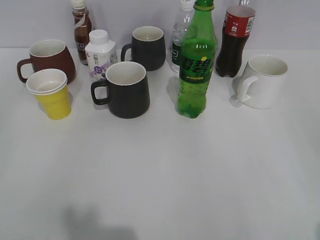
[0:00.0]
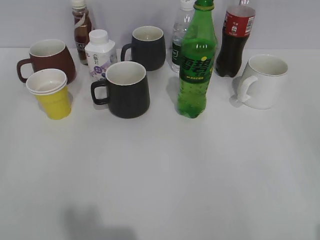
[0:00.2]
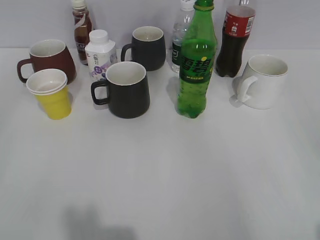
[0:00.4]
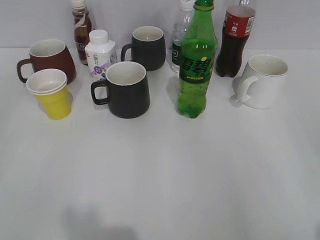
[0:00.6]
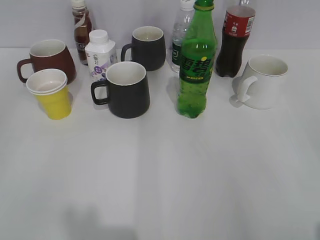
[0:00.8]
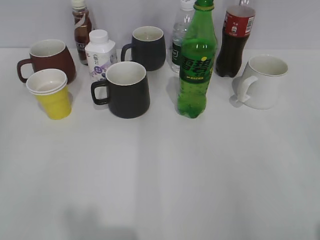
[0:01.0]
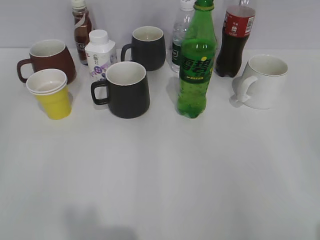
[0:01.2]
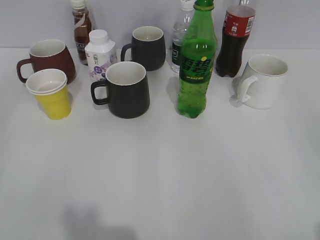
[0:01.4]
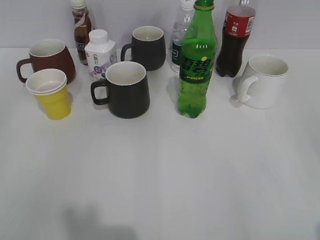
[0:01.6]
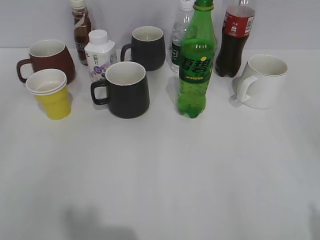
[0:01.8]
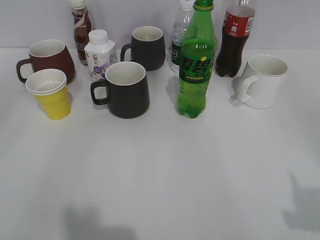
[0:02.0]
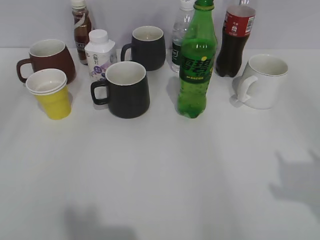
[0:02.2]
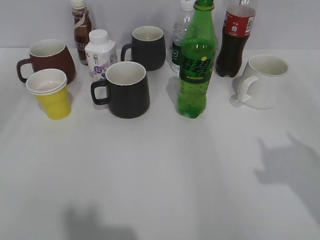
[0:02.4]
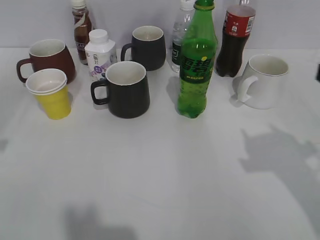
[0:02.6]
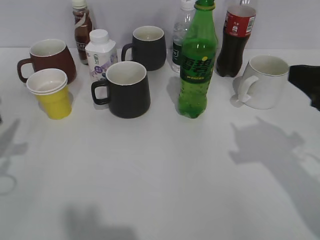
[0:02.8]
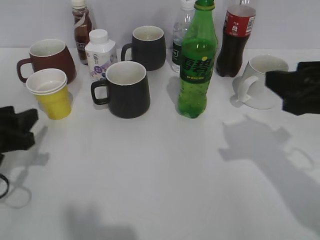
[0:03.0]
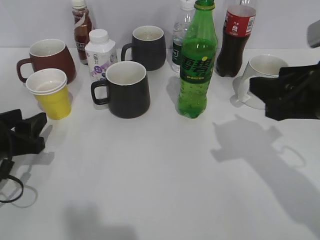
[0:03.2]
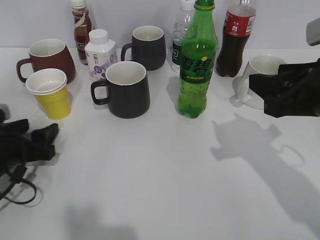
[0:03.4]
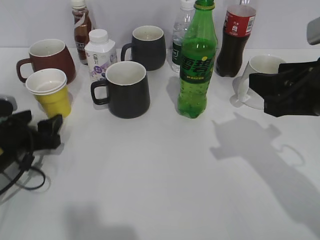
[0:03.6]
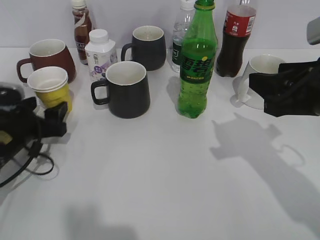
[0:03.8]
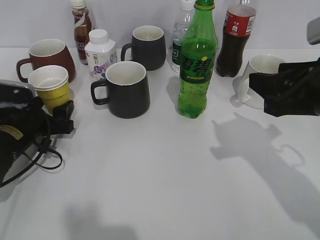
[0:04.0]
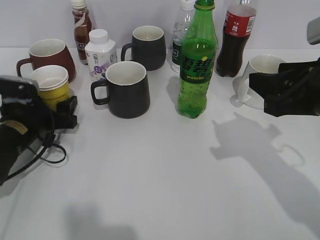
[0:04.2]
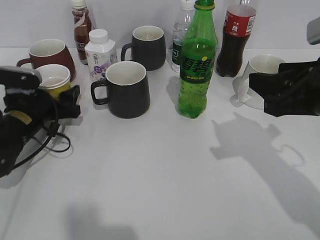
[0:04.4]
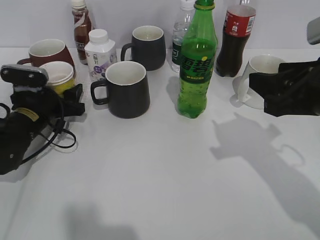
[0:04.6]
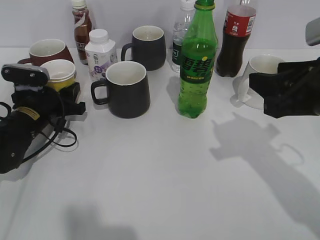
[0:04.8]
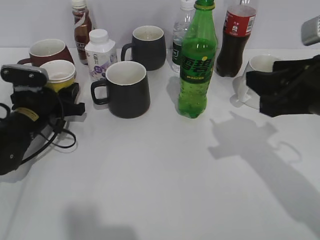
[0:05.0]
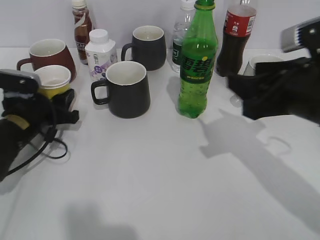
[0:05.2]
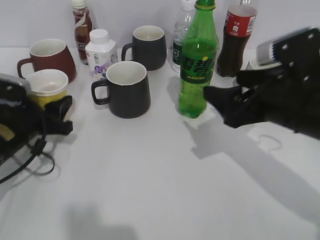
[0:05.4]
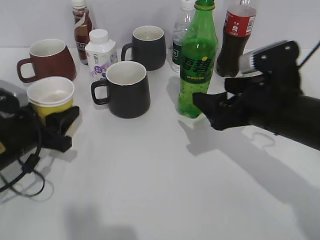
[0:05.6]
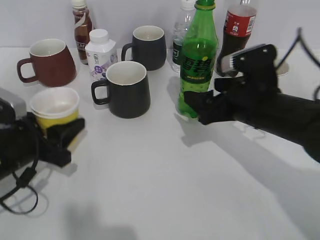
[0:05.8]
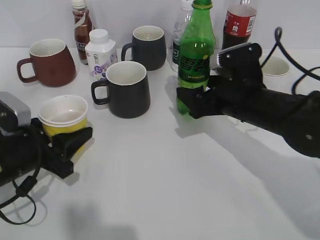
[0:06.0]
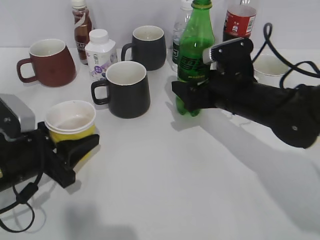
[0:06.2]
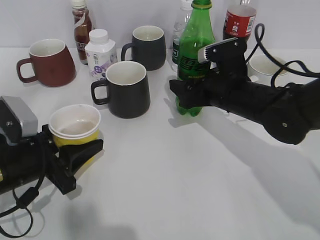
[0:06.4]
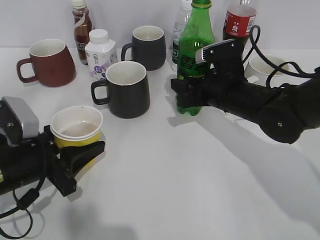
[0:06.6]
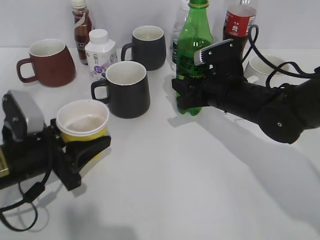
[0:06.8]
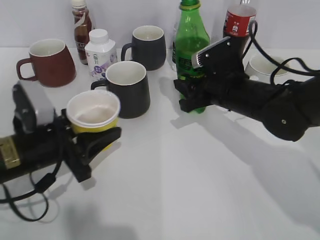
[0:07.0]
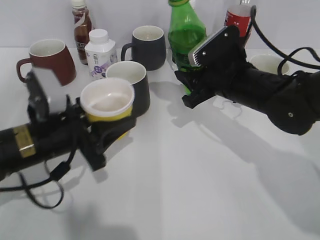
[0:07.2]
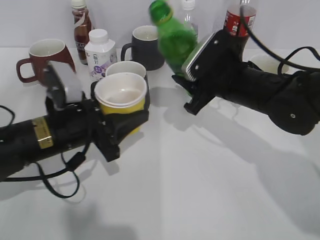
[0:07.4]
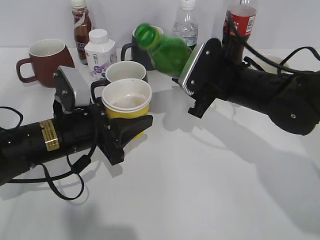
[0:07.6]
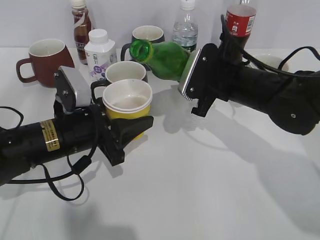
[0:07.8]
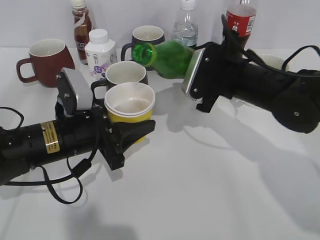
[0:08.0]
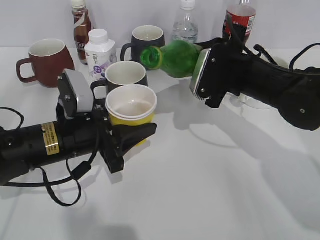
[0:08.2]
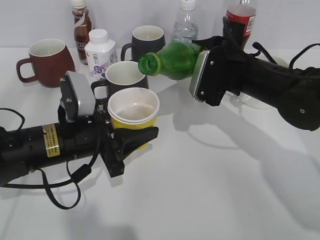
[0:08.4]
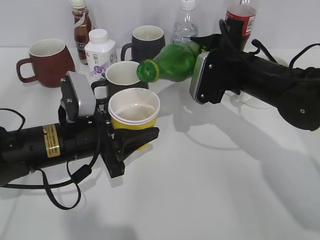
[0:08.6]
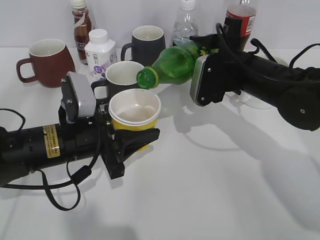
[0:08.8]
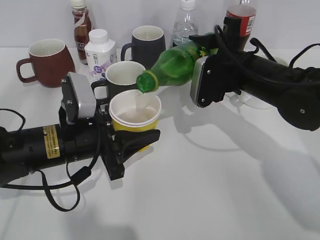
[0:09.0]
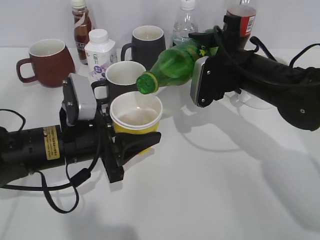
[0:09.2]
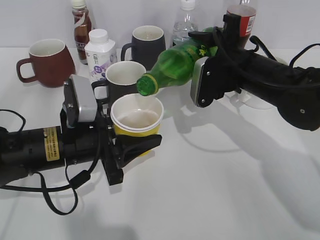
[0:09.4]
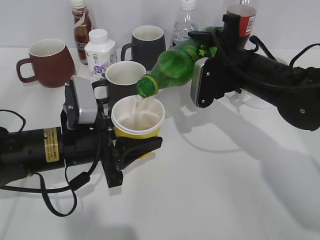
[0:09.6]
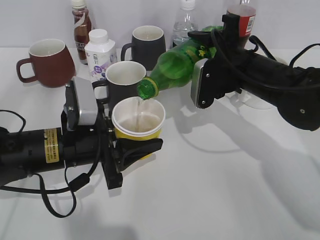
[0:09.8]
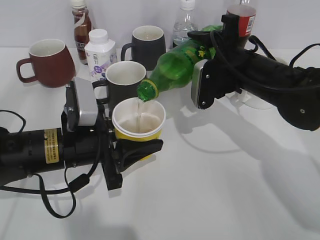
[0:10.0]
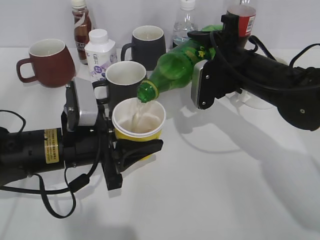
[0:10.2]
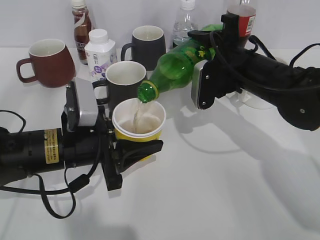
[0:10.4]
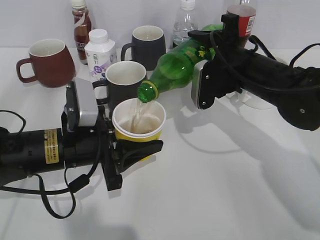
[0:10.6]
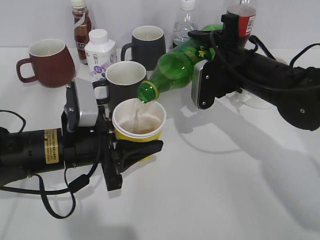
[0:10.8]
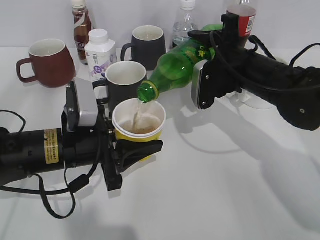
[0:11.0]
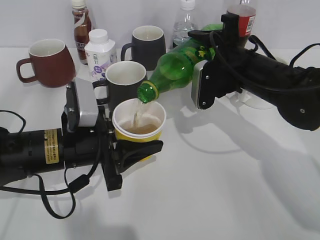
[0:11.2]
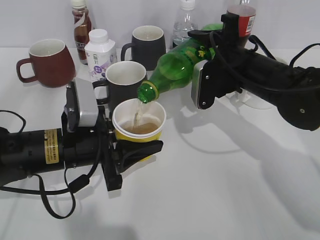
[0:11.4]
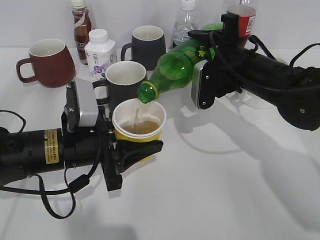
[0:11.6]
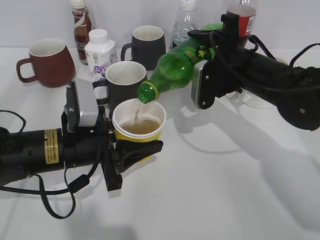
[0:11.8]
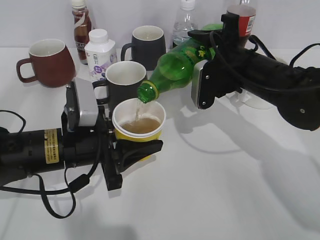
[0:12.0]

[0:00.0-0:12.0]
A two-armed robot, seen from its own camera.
Step, 0:01.8 to 0:04.6: Grasp the yellow paper cup with left gripper.
Step, 0:05.0 to 0:06.8: Grasp the bottle with sprite with right gripper.
0:01.6 to 0:03.0: The right gripper travels forward and to the left by some 20 cm. The left gripper is displaced forward and downward by roughly 25 cm, and opens up.
0:03.0 to 0:04.4: The left gripper travels forward and downward by about 10 cm, and opens its fingers.
0:04.4 to 0:06.0: The right gripper goes approximately 15 cm downward, forward and to the left, and opens up, while the left gripper shifts roughly 10 cm backward, and closes its fingers.
0:06.0 to 0:07.6: The left gripper goes some 10 cm to the right. The right gripper closes up.
0:09.0 to 0:10.4: There are only small adjustments of the grippers.
0:10.4 to 0:12.0: The two grippers keep their place.

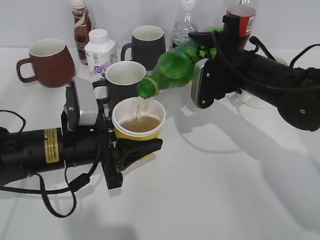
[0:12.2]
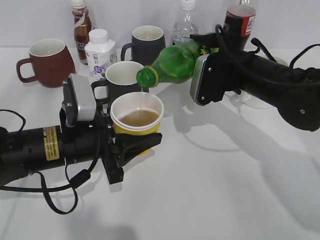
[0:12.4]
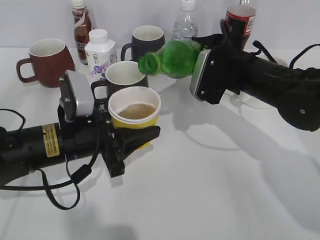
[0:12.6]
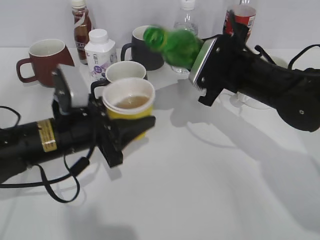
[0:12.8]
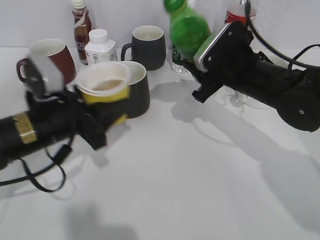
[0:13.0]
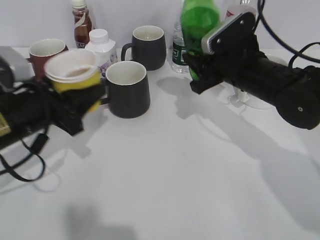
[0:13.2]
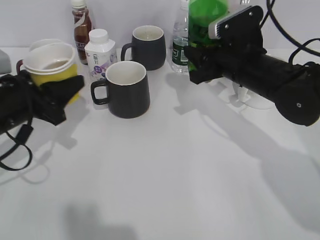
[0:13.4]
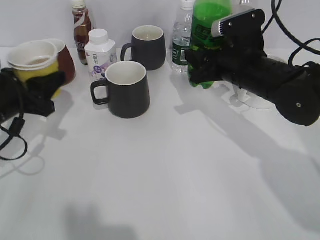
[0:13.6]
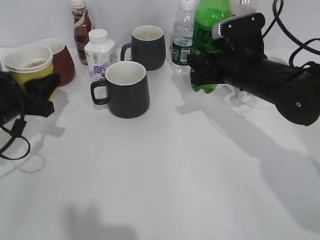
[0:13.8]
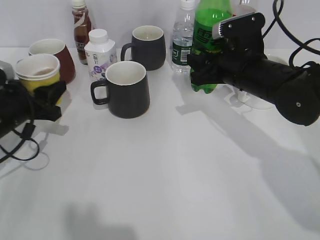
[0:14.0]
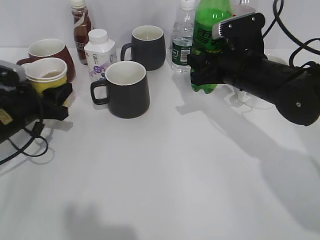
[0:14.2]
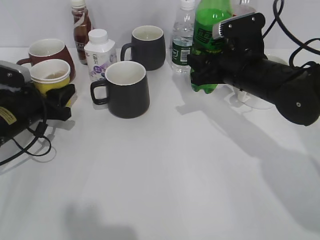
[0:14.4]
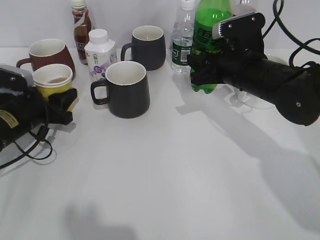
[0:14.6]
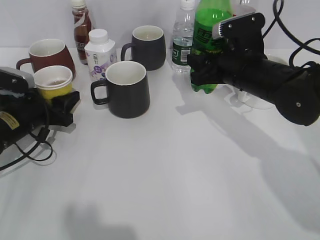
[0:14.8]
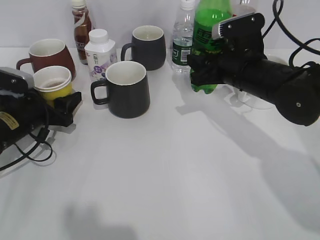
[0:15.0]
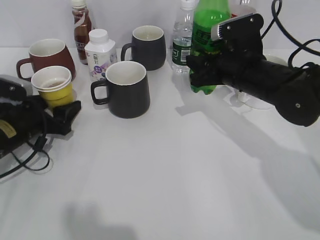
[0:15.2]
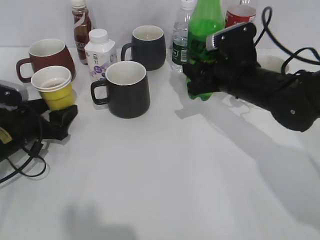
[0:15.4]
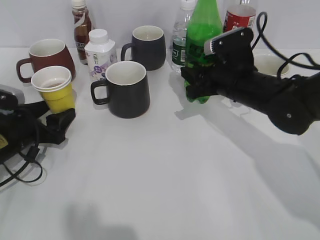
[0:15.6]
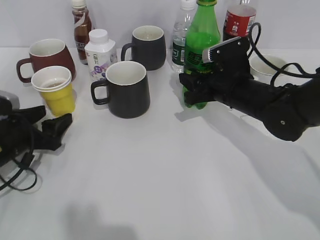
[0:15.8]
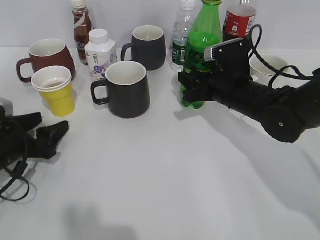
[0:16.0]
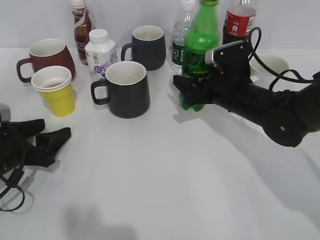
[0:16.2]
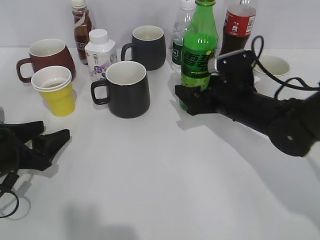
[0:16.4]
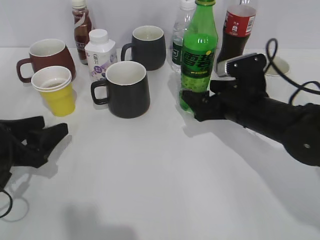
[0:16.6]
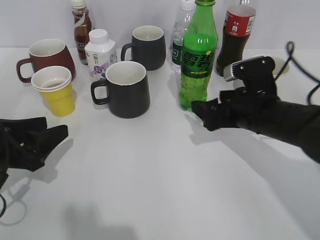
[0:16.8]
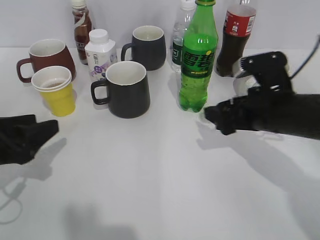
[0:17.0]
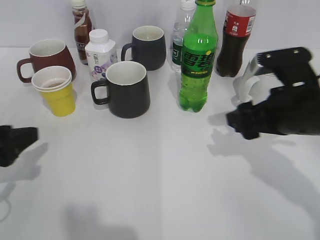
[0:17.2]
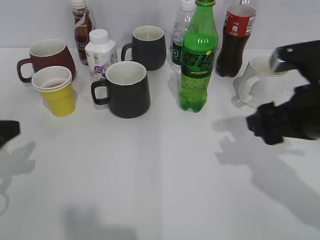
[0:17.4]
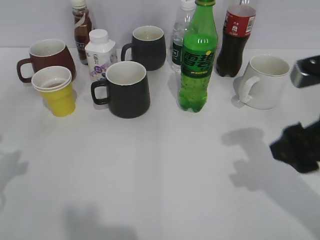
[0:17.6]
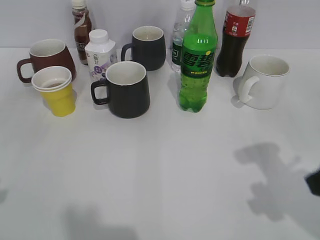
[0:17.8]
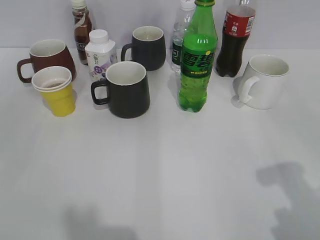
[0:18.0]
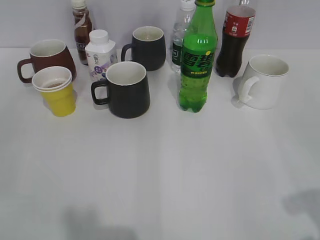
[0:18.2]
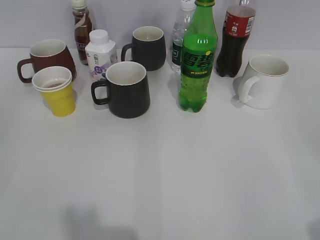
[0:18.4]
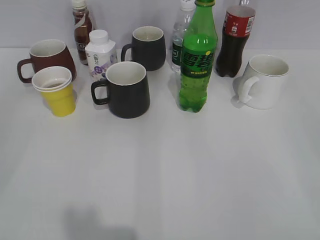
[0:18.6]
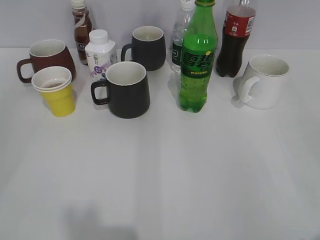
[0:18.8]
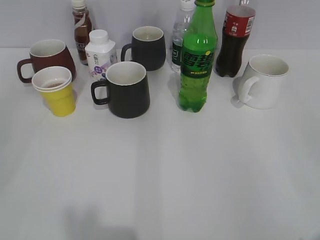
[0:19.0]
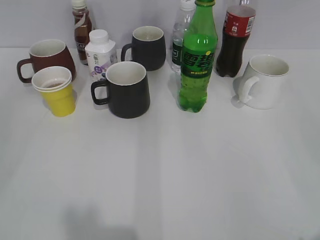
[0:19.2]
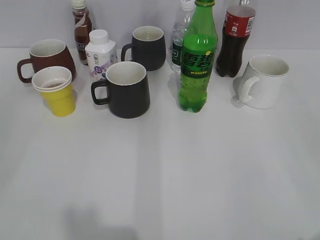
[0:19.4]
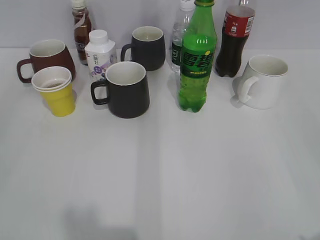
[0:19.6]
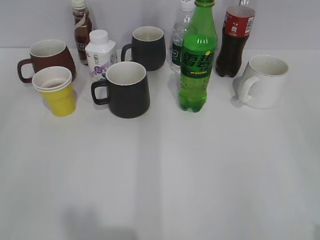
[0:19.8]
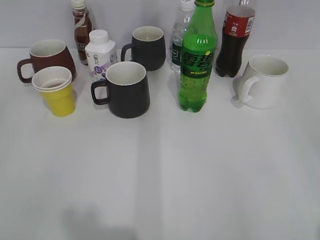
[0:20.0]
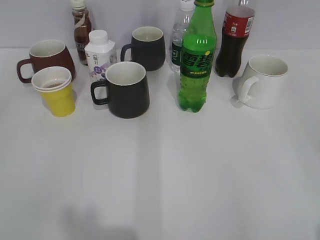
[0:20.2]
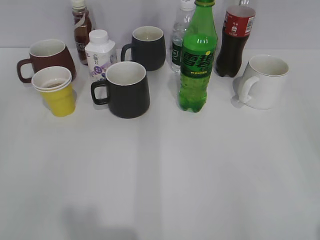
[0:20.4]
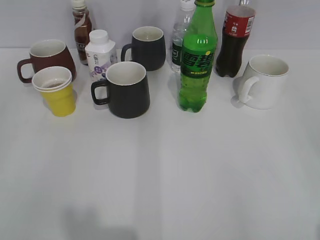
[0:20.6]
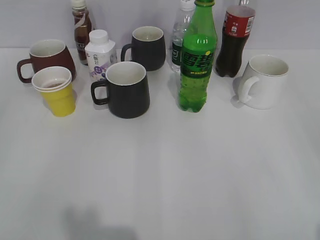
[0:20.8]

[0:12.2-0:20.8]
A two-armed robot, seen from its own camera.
Step, 0:12.6 to 0:15.2: Place the yellow paper cup on the table with left gripper.
Step, 0:15.4 to 0:16.4: Place the sprite bottle on the table with right gripper.
0:12.2 to 0:13.6: The left gripper shifts about 10 cm to the left.
0:13.6 to 0:15.0: The left gripper heads downward, covering some 5 cm, and opens.
0:15.0 to 0:16.6: The left gripper shifts about 10 cm backward; the right gripper changes place by about 5 cm, and opens its fingers.
0:16.6 to 0:18.0: The left gripper moves upward and backward, some 20 cm, while the right gripper goes approximately 25 cm backward, upward and to the right.
0:18.0 to 0:19.4: The right gripper travels backward and to the right by some 10 cm.

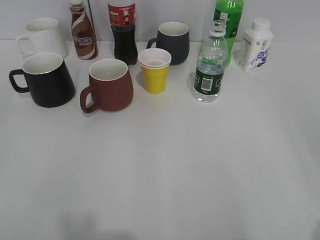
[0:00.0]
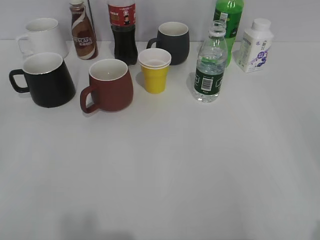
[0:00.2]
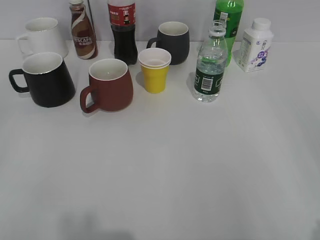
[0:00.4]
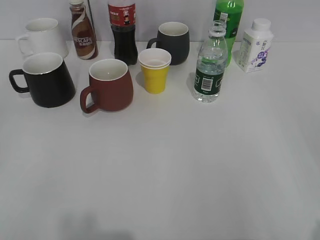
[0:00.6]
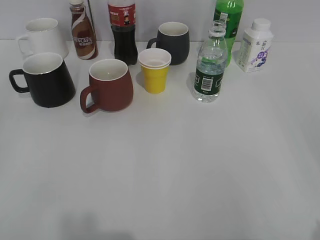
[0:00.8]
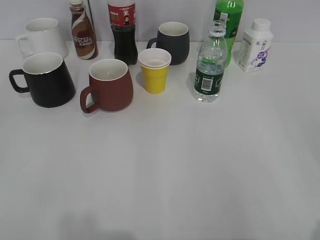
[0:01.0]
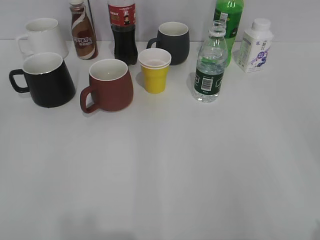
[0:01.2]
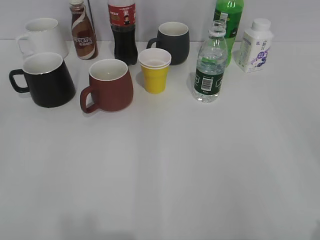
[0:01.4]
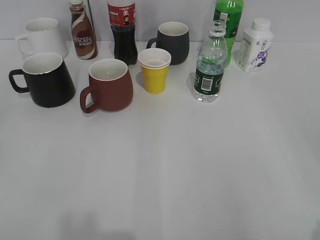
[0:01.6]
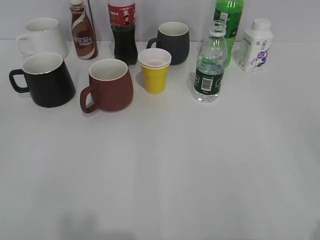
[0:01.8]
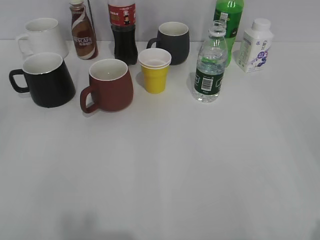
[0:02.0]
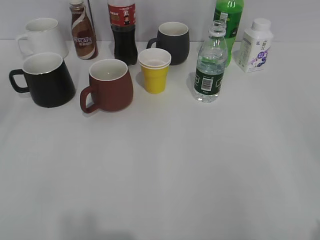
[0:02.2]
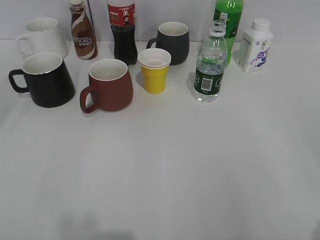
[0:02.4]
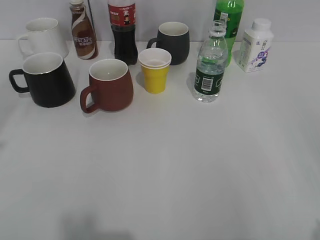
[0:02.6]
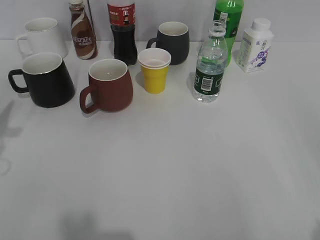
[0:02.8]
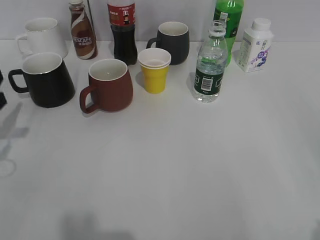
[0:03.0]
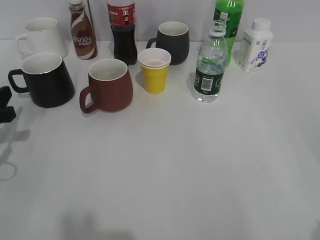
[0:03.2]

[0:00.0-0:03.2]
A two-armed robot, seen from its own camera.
0:01.6 to 0:03.2: The left gripper heads forward and downward, covering some 30 cm.
